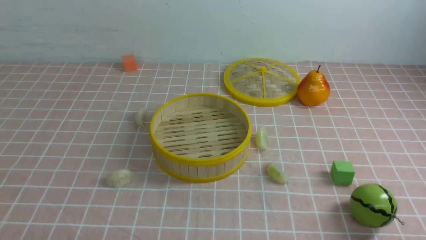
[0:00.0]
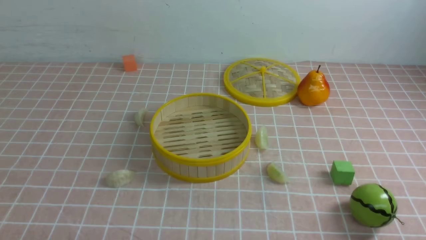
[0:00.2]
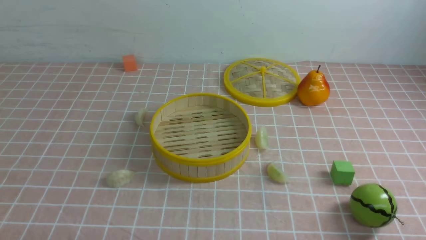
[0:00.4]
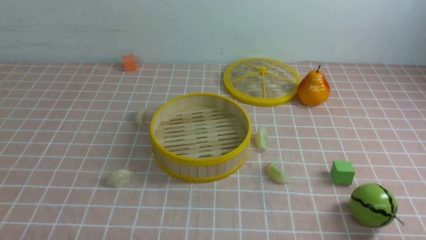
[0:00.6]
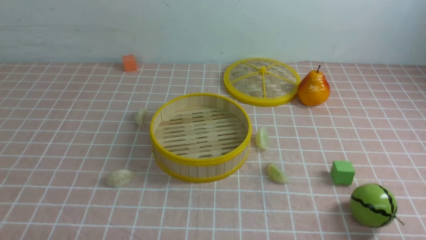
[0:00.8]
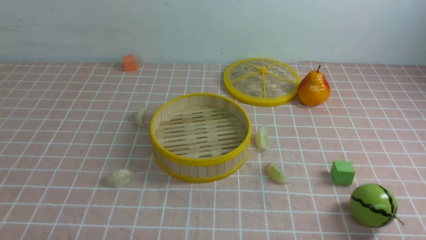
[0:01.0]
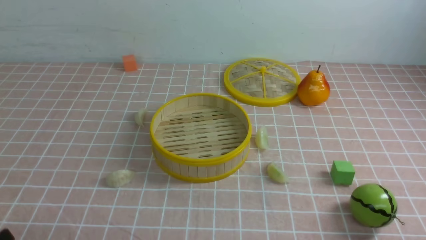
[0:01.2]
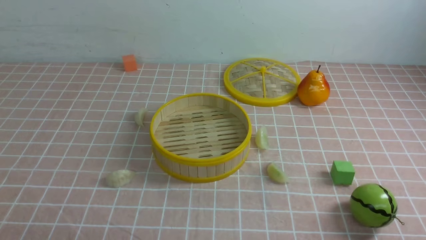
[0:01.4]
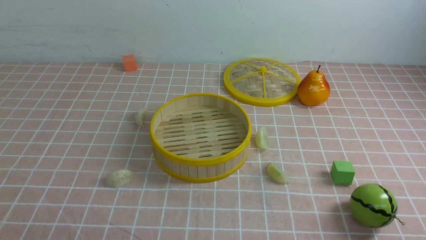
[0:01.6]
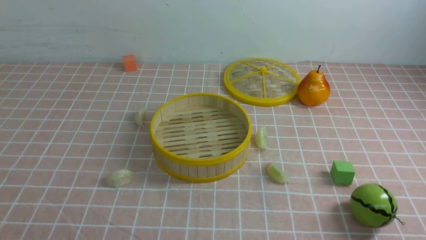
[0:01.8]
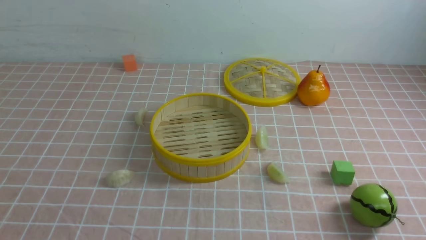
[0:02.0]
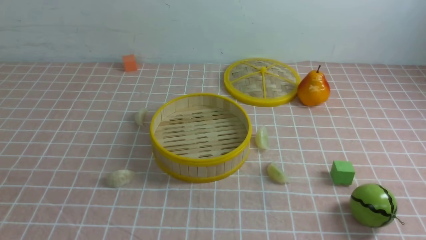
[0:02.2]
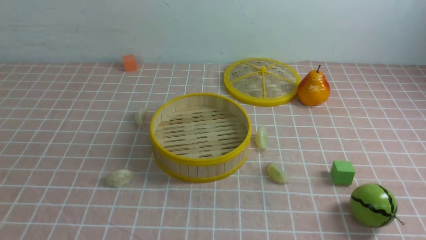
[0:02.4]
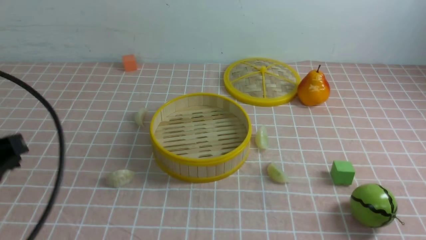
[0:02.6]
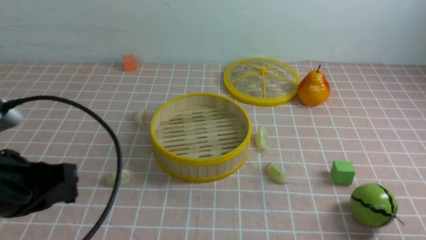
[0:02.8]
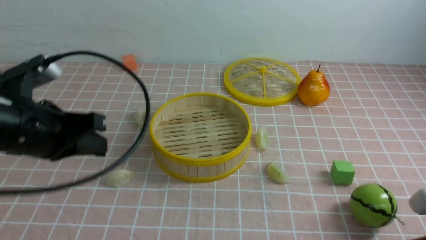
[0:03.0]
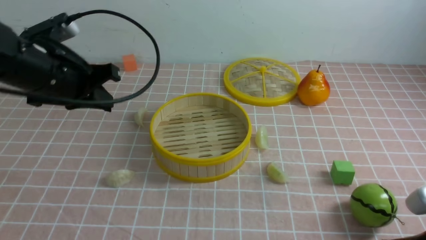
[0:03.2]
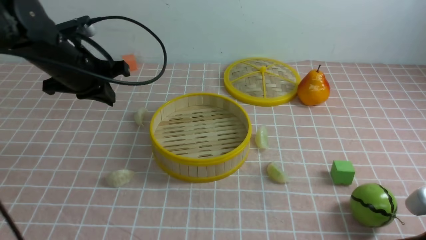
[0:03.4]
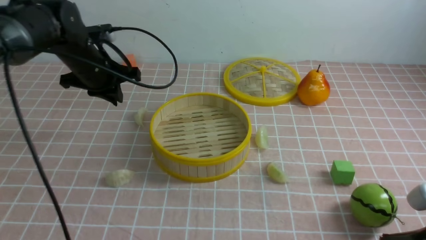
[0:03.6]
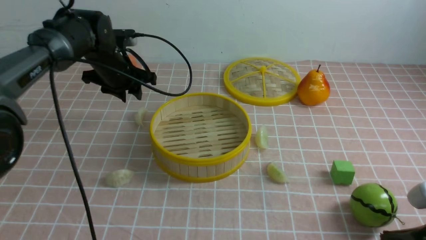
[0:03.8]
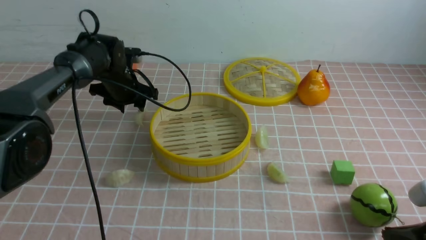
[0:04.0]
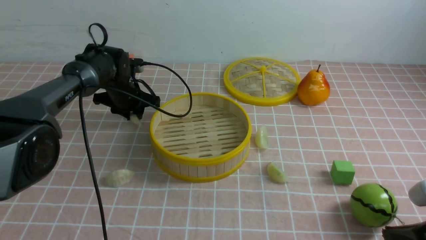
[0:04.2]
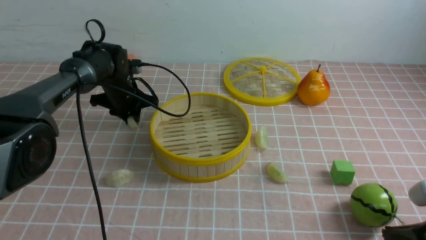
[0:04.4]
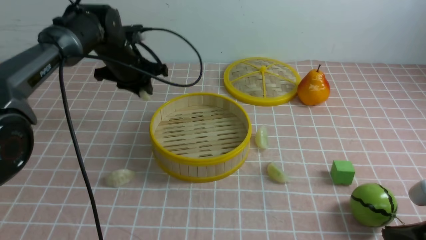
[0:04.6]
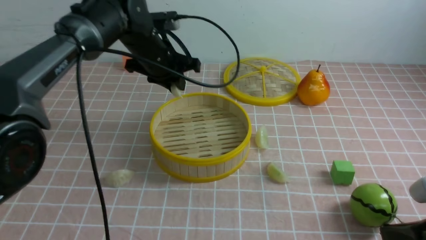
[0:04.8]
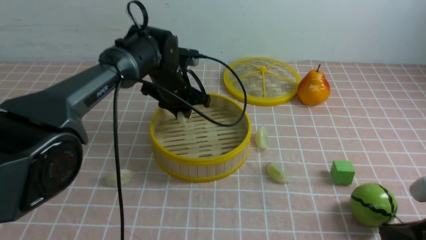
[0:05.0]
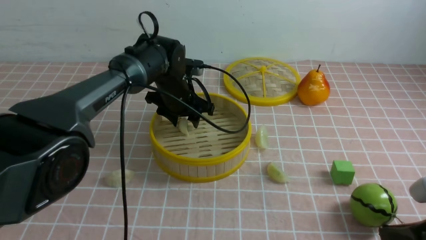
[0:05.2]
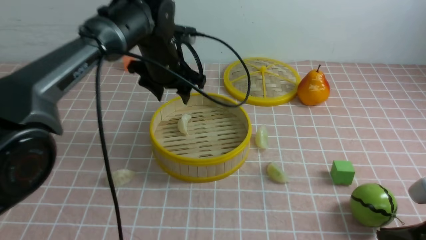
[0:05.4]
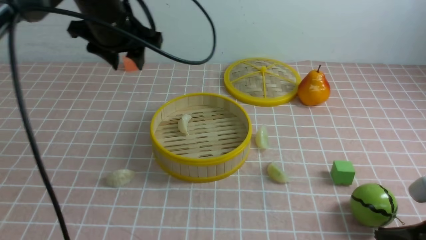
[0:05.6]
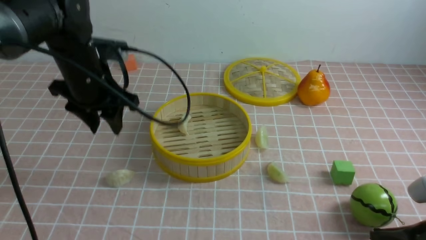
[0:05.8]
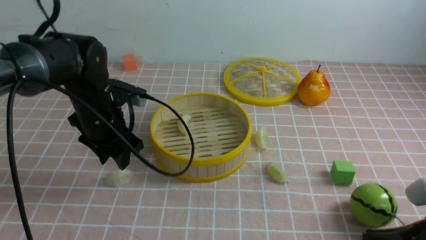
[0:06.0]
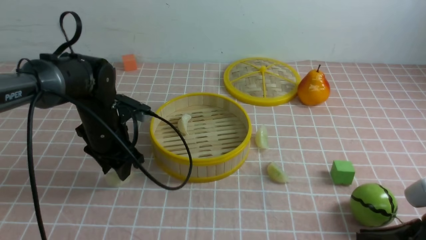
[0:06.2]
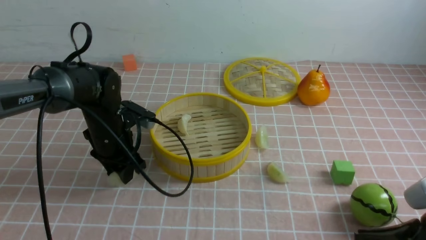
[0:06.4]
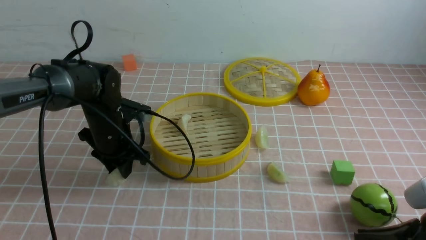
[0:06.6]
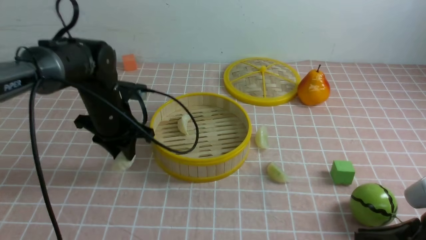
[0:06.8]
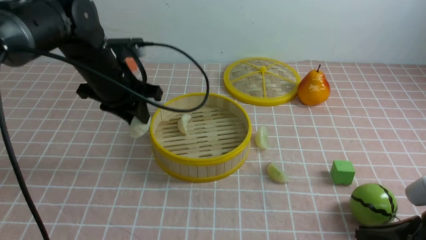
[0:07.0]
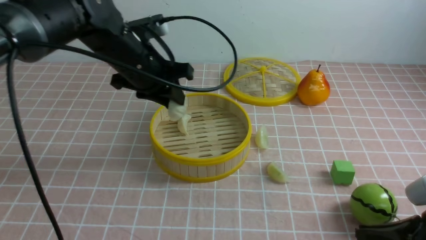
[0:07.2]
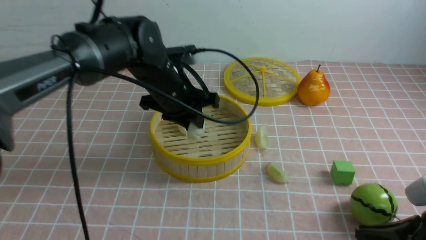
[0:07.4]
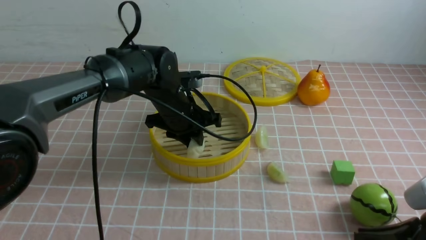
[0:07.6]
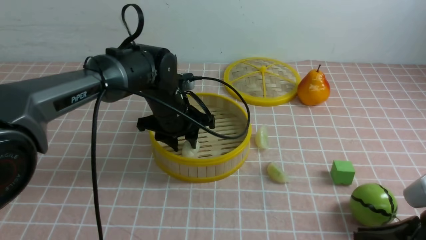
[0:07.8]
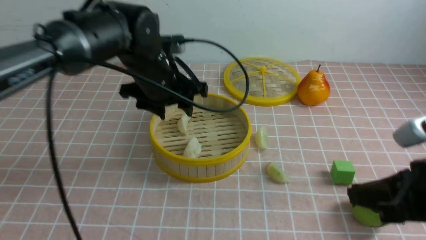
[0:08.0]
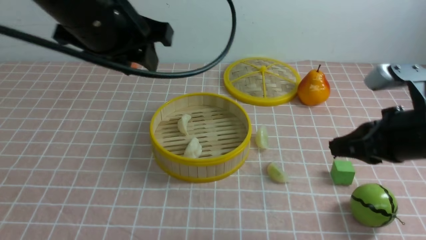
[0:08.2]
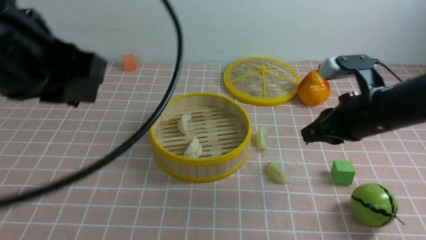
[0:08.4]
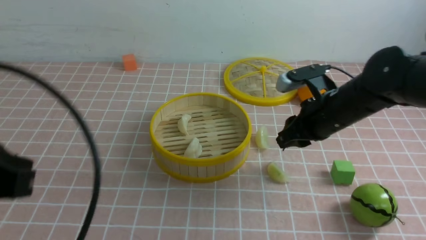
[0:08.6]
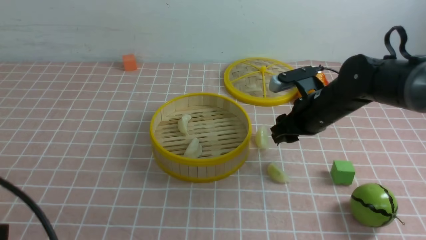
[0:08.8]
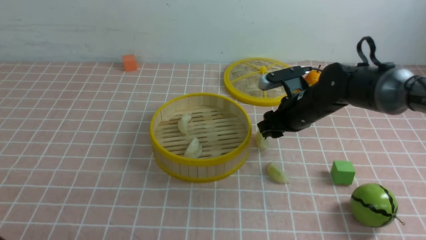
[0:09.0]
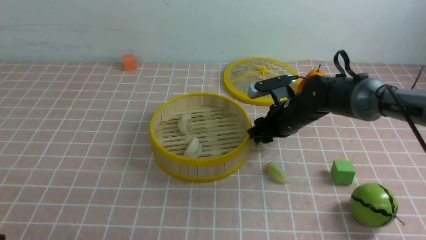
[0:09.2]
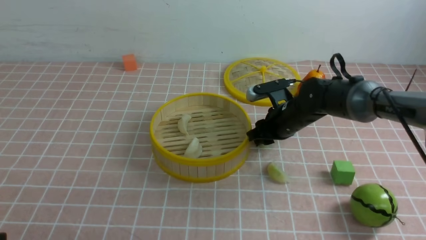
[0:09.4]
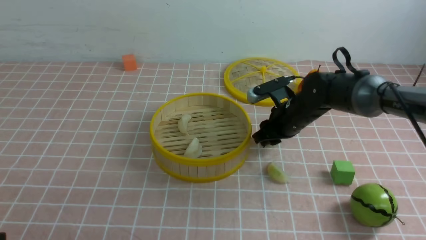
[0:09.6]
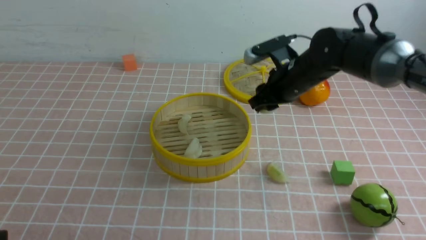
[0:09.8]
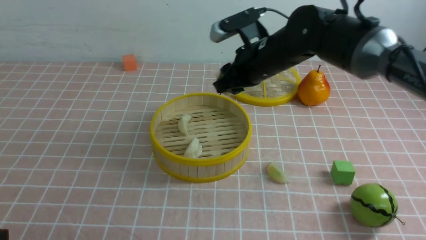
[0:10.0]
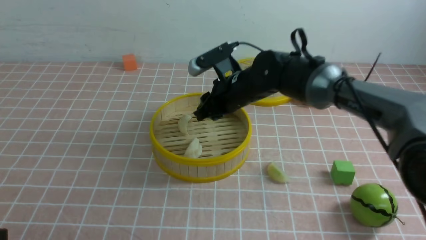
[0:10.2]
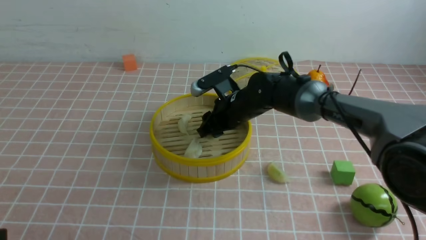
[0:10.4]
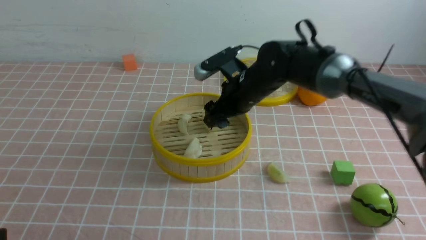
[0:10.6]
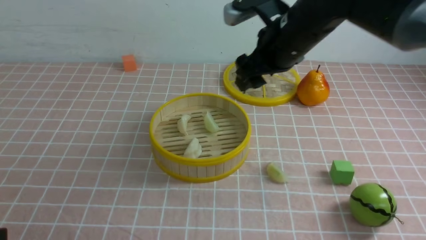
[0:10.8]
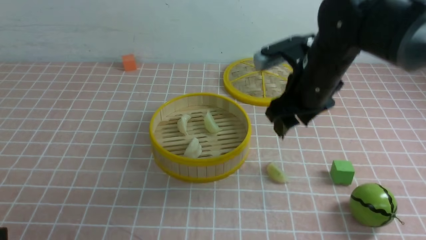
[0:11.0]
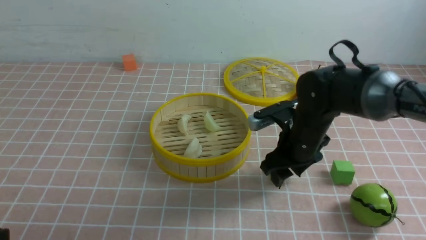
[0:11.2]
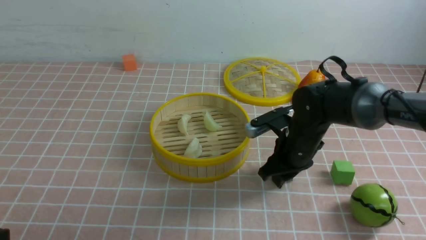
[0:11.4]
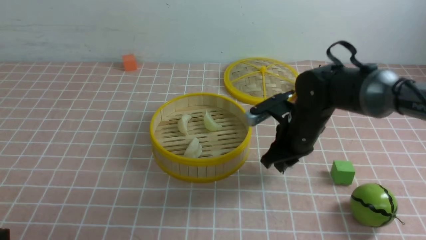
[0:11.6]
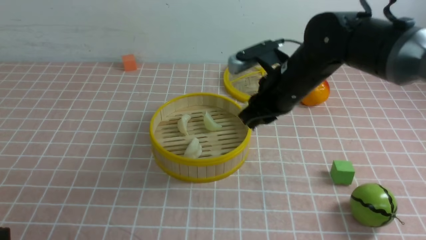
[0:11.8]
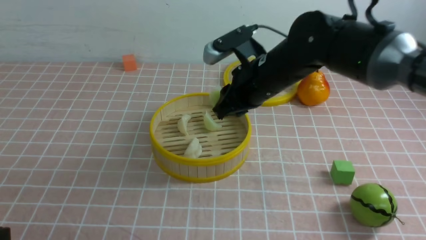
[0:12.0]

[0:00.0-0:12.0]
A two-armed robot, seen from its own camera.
Task of the whole recording: put the dumplings into the steamer on the table with the pink tablecloth.
Step, 0:00.0 to 0:04.4: use the left arm to grab a dumpling.
Step, 0:04.6 to 0:05.2: use the left arm to put the dumpling into the steamer.
Step, 0:05.4 to 0:06.6: use the left arm to grab a dumpling.
Step, 0:07.0 to 0:07.8: use the left arm to put the dumpling into the steamer.
Step, 0:08.0 to 0:09.6: use the right arm to grab a dumpling.
Step, 0:09.8 to 0:10.6: use the right arm to put the dumpling into the steamer.
Step, 0:10.8 to 0:11.6: use the right arm to grab a dumpling.
0:01.6 to 0:03.0: The left gripper heads forward, covering about 20 cm, and closes its fingers. Meanwhile the right gripper travels forward by some 10 cm, and closes its fingers.
0:03.0 to 0:04.4: The left gripper moves forward and downward, approximately 30 cm, and opens up.
0:04.4 to 0:06.0: The left gripper heads backward, covering roughly 15 cm, and opens.
0:06.0 to 0:07.6: The left gripper swings up and down, some 10 cm each way, with 2 reversals.
0:07.6 to 0:09.0: The right gripper goes some 30 cm forward, and opens up. Meanwhile the left gripper goes roughly 40 cm backward and to the left, and closes up.
0:09.0 to 0:10.4: The right gripper shifts some 10 cm to the left.
0:10.4 to 0:12.0: The right gripper swings up and down, roughly 10 cm each way, with 2 reversals, and closes its fingers.

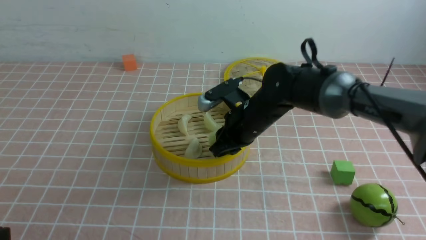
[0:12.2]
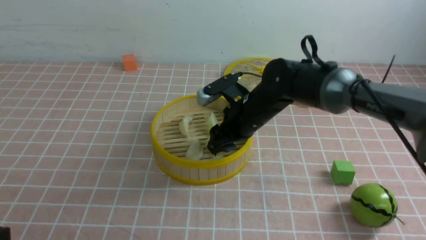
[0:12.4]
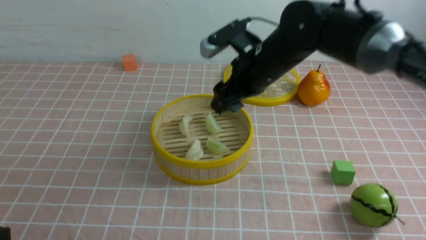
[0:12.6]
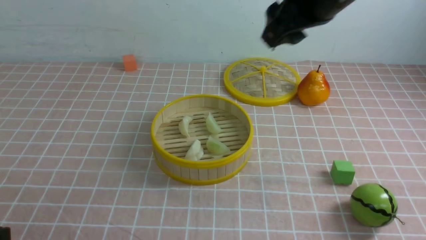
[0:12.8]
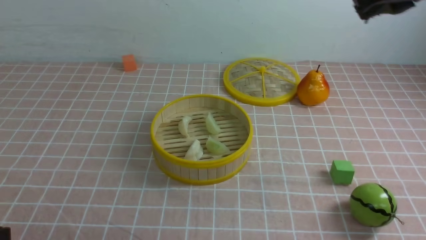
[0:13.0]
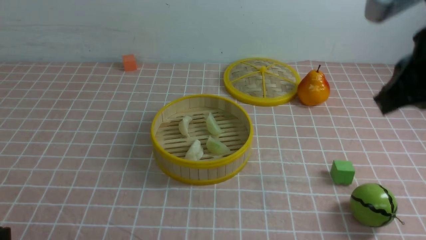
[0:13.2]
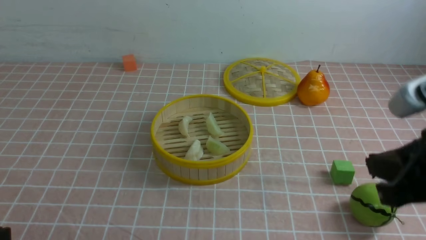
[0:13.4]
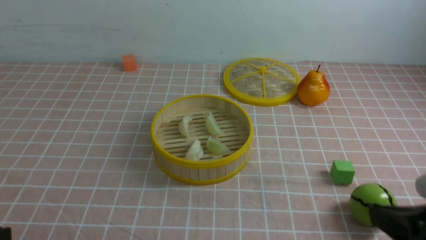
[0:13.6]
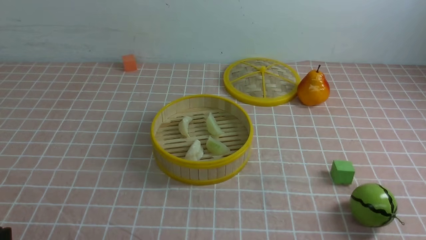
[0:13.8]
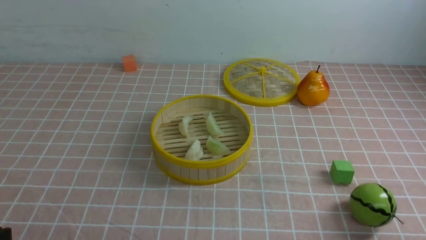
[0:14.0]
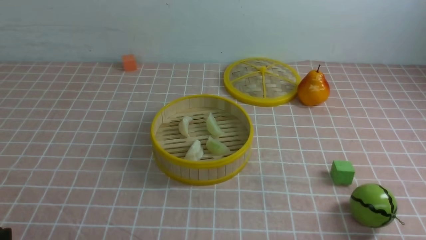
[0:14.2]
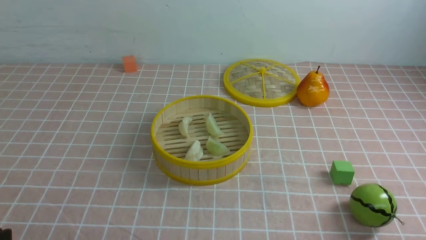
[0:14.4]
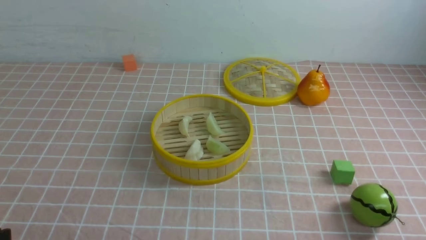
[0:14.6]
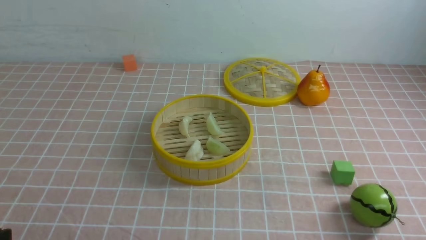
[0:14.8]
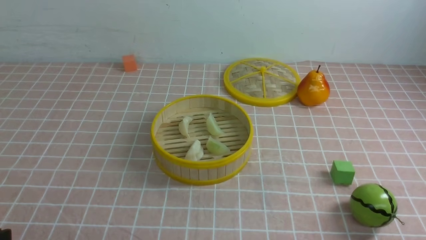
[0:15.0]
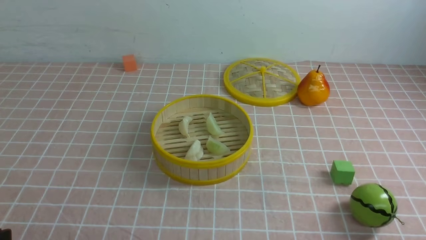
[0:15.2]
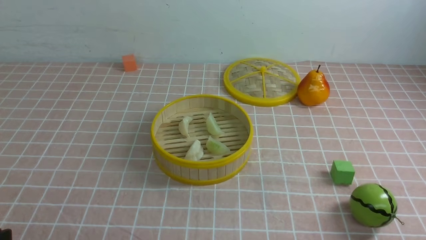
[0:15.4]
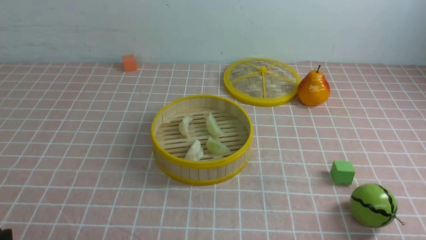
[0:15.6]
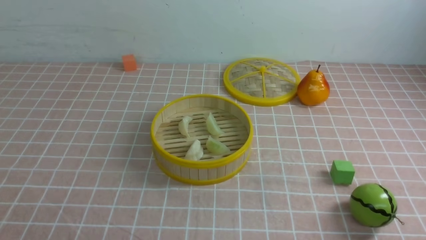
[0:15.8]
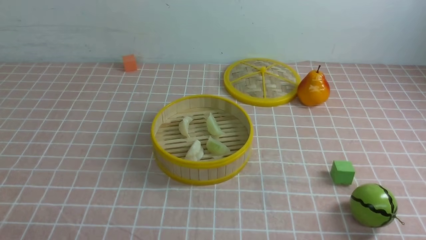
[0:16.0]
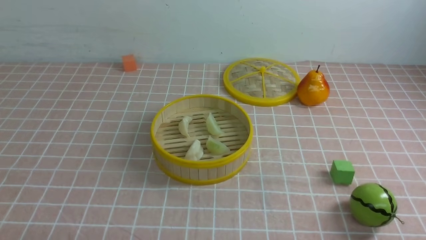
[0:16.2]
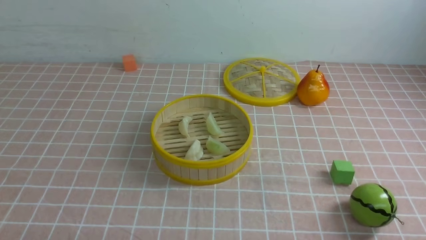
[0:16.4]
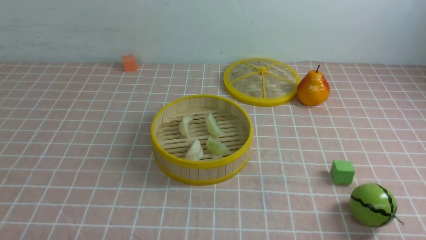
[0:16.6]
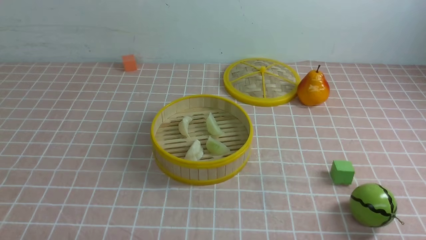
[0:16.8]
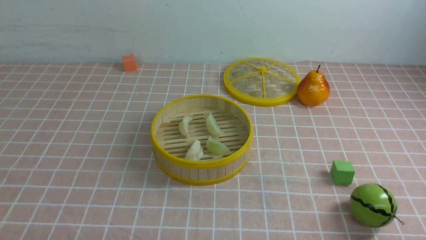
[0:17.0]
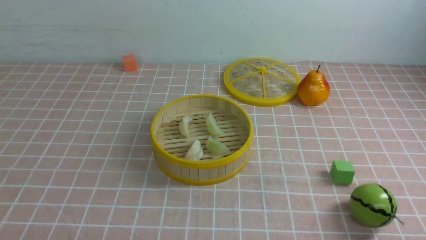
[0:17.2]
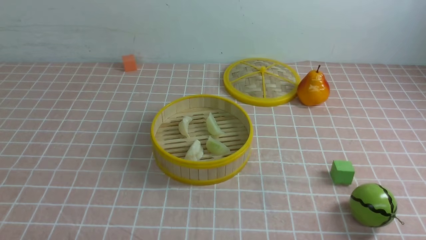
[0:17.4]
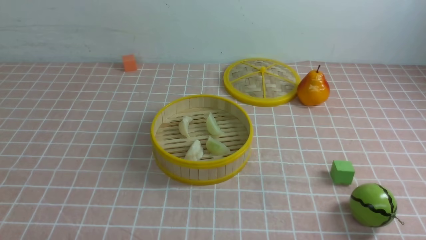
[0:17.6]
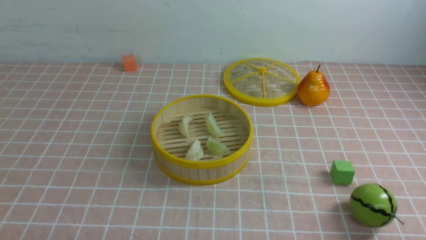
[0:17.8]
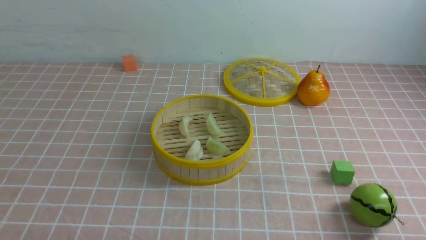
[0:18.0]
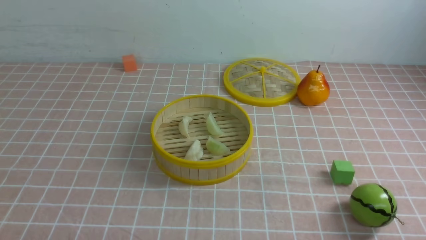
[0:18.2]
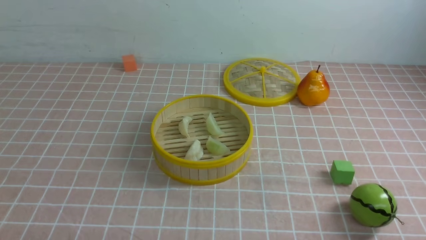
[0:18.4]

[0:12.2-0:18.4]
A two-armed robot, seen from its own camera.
Task of the whole recording: put the dumplings into the steamer on the table with the pink tablecloth.
0:12.2 to 0:13.8: The right gripper is displaced backward and to the right by some 35 cm, and closes its fingers.
0:16.8 to 0:18.4: The two grippers keep their place.
